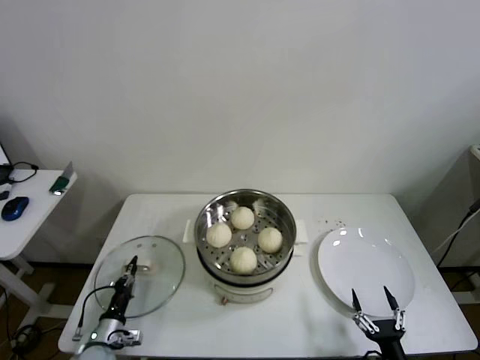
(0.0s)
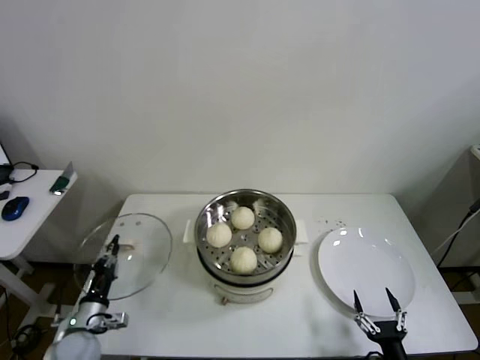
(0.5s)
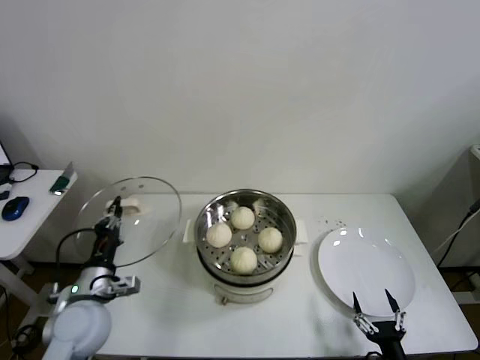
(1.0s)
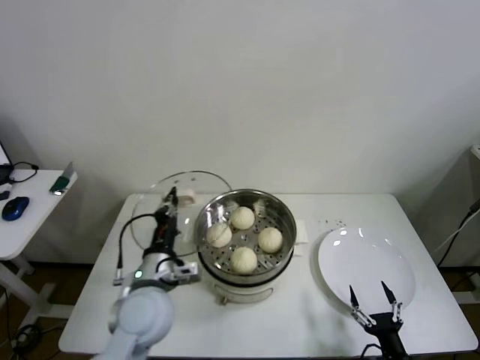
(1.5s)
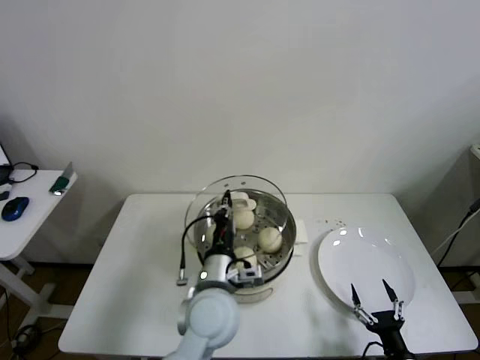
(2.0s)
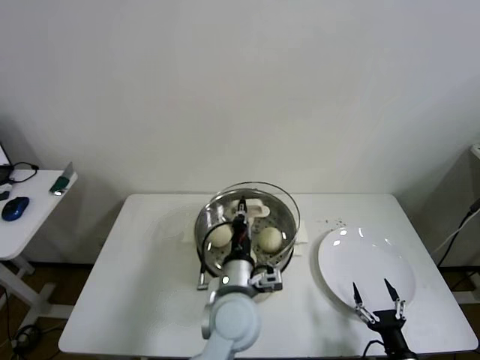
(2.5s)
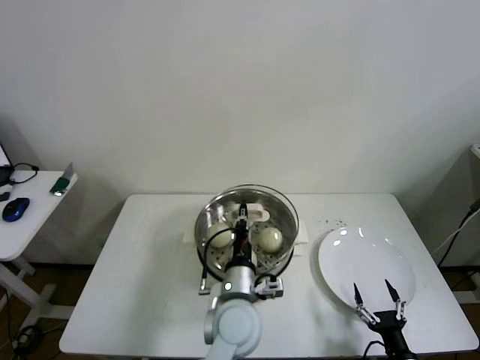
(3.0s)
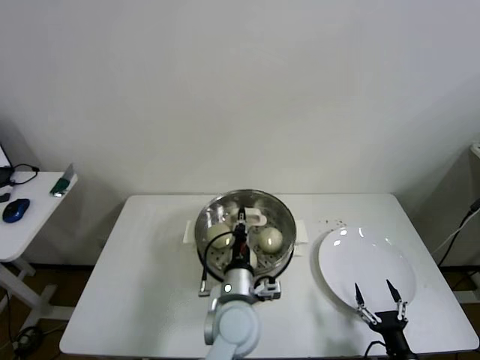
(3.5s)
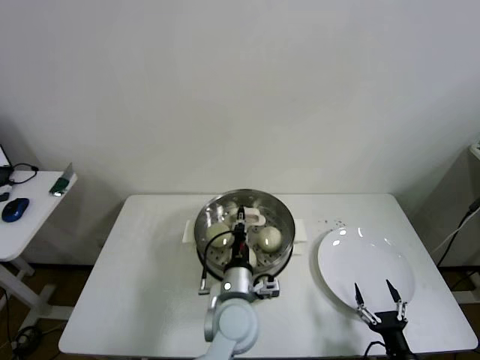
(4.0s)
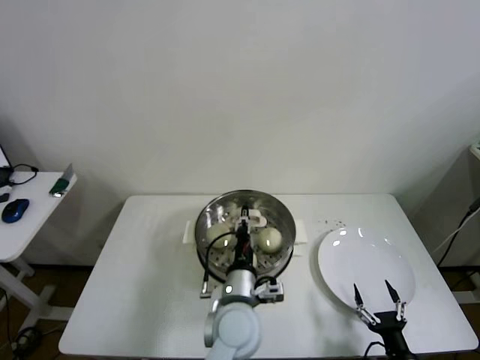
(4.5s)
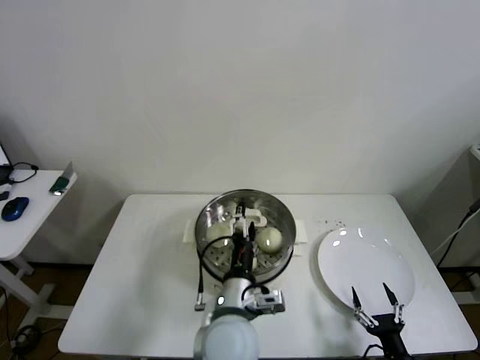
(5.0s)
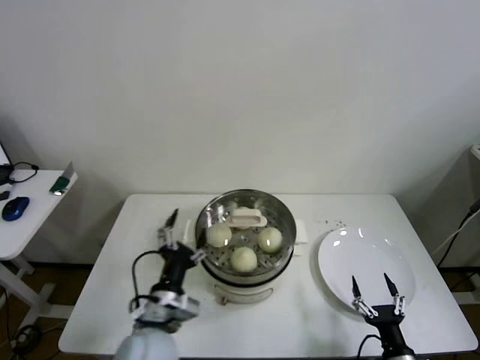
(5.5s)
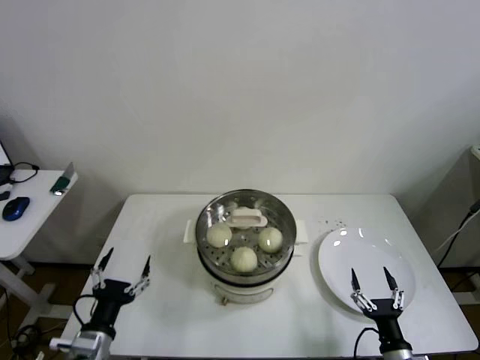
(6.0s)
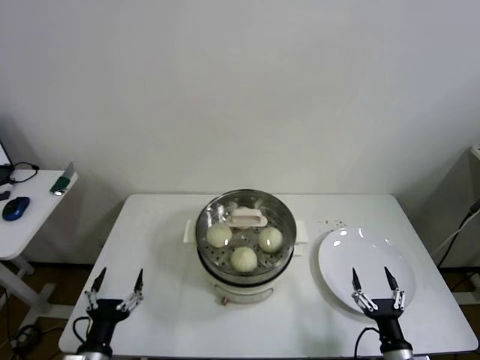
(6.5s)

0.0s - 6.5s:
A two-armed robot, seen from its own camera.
Step, 0.0s - 4.5s: Place the pot lid on the steamer with left gripper.
0.0s - 2.0s: The left gripper is displaced to the right and upward by approximately 40 cm.
2.0s - 4.5s: The left gripper travels to the right and downward by roughly 10 cm.
4.5s - 6.5s: The left gripper shifts approximately 35 cm to the left and backward, and opens up.

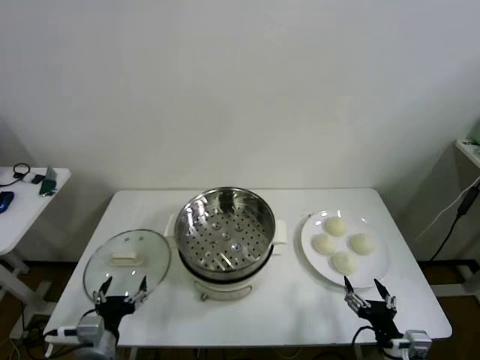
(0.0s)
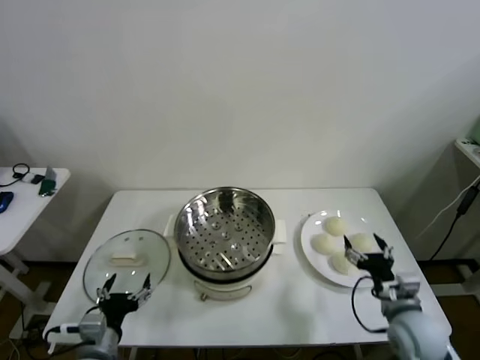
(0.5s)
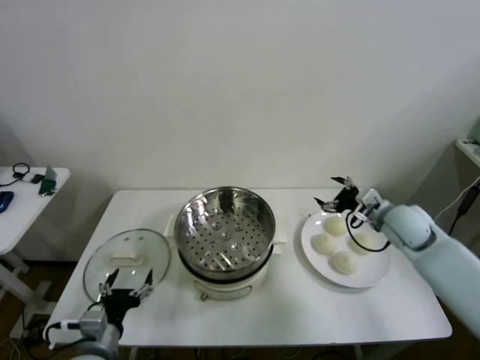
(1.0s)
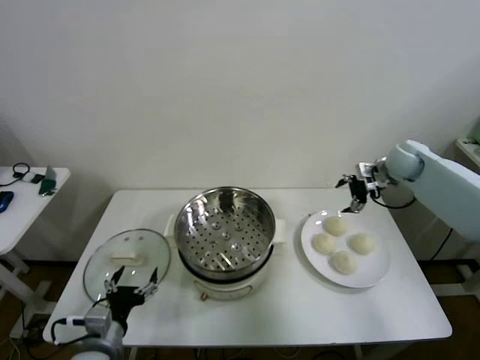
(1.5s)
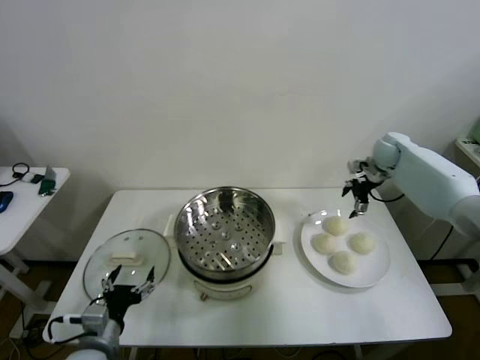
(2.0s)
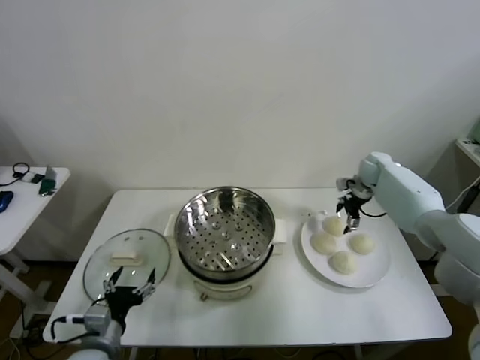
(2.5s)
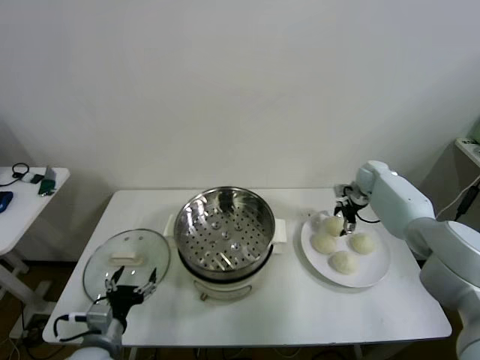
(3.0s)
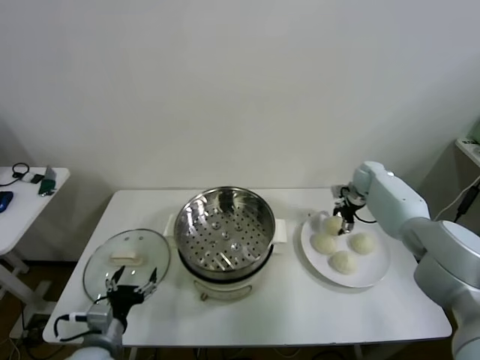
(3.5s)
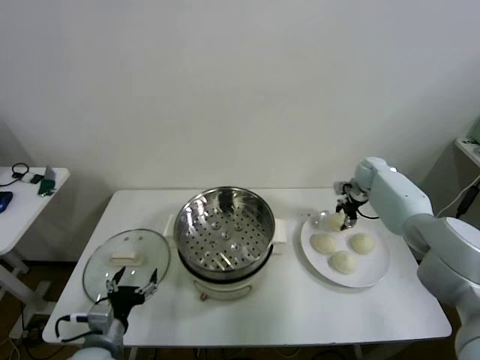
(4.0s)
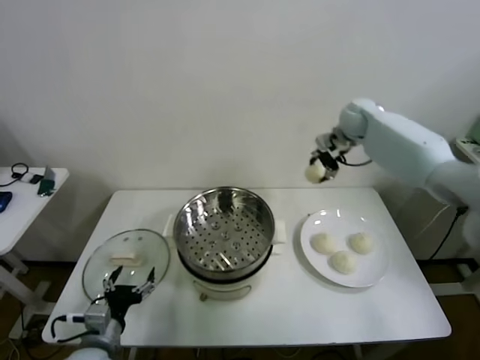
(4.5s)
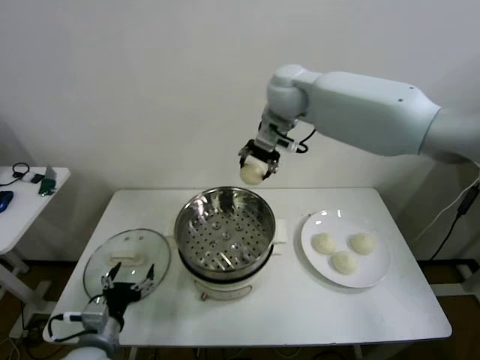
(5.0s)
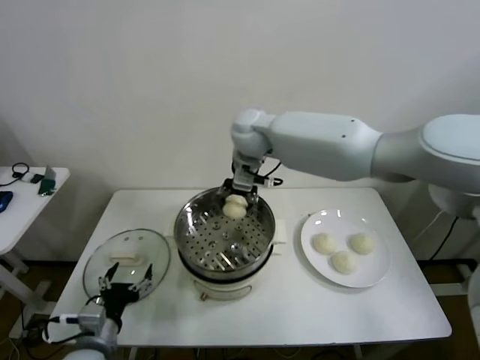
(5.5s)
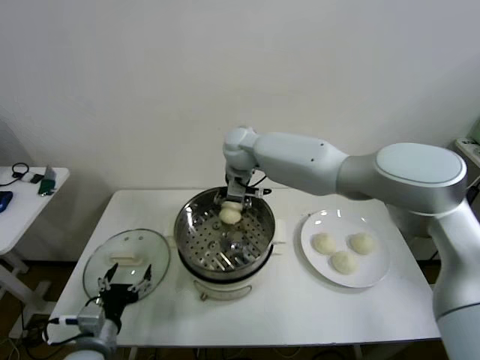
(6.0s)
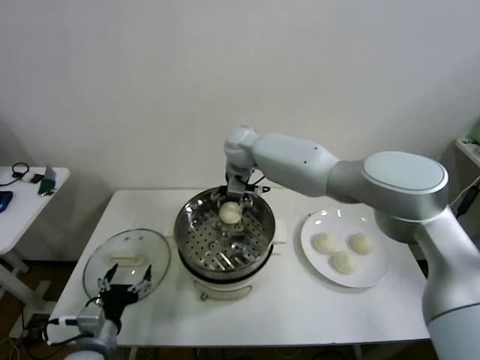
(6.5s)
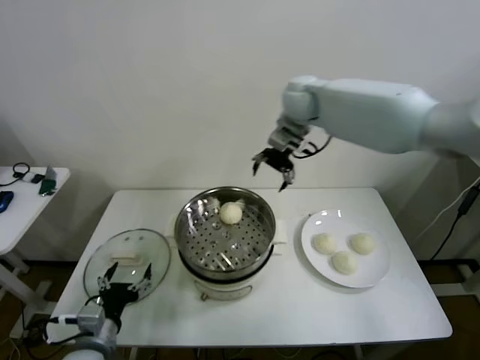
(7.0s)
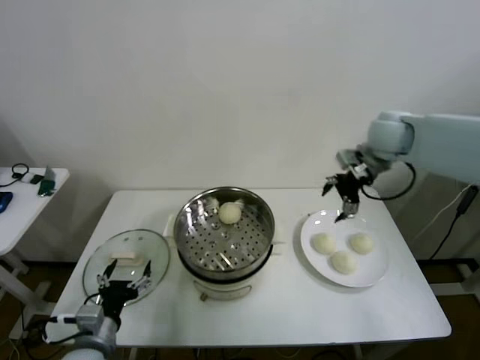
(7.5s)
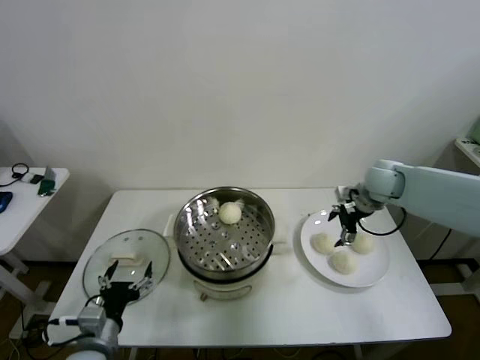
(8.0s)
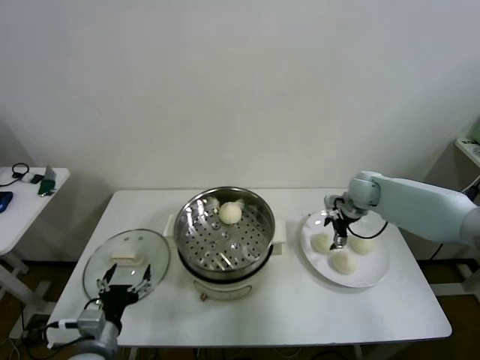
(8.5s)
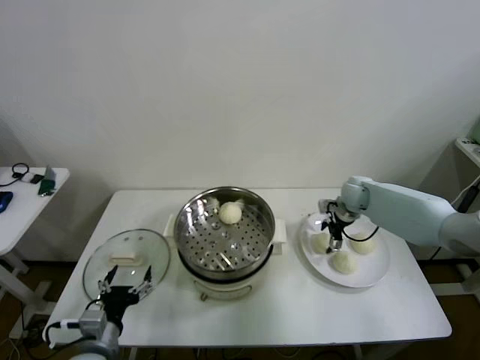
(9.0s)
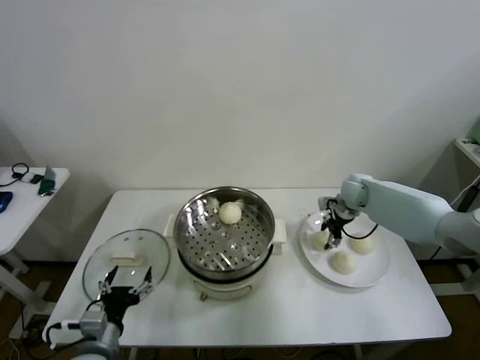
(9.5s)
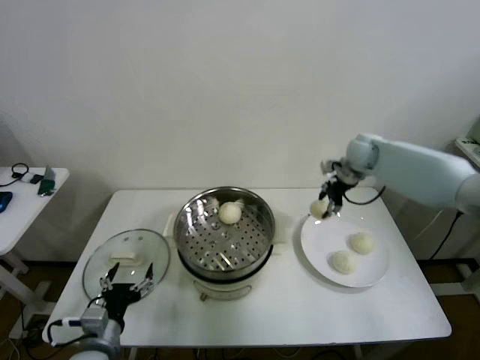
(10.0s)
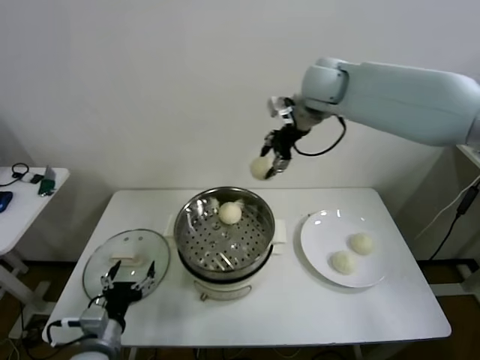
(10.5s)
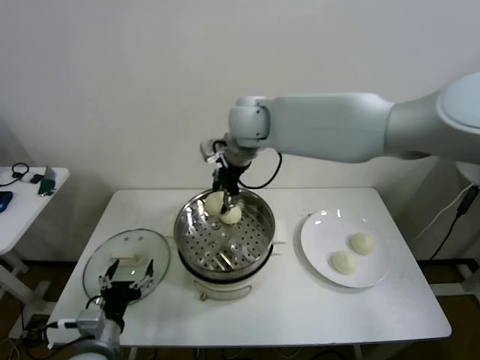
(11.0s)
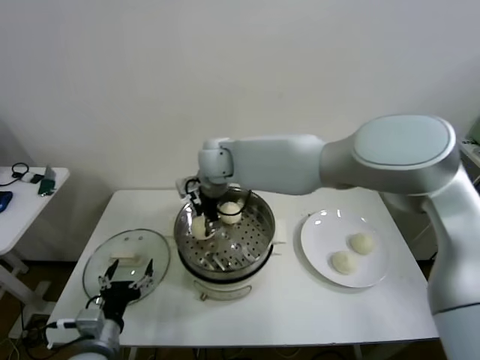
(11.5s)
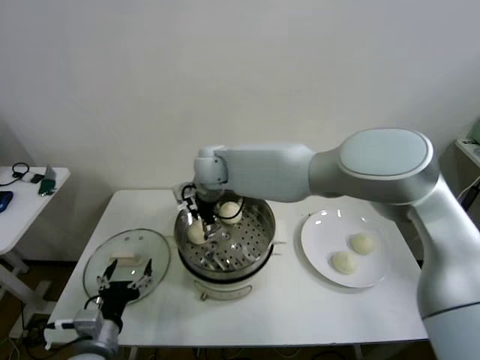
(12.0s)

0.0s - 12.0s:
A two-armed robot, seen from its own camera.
Step, 0.0s - 3.5s: Grasp the baozi in the plate with right gripper.
Step, 4.0s - 6.0s: Place the baozi on the steamer with right gripper.
Step, 6.5s - 9.0s: Grasp the baozi in the plate with right gripper.
Step, 9.5s - 11.5s: Place the baozi on the steamer with right gripper.
2.0s - 4.0s: The right gripper shifts approximately 5 cm downward, and closes its fingers.
4.0s - 6.0s: The right gripper shifts about 40 cm to the left.
6.0s - 8.0s: The right gripper heads to the right, covering roughly 35 cm, and opens.
8.0s - 10.0s: The right gripper moves forward and upward, approximately 10 cm, and closes up.
10.0s - 12.0s: The right gripper goes about 35 cm to the left, and opens its fingers.

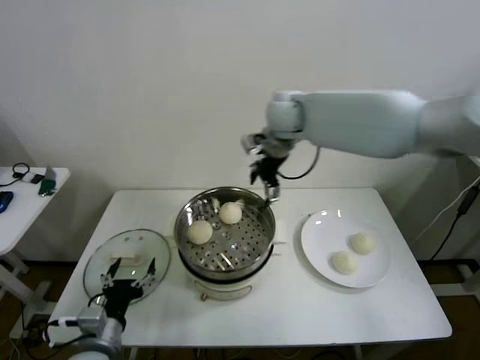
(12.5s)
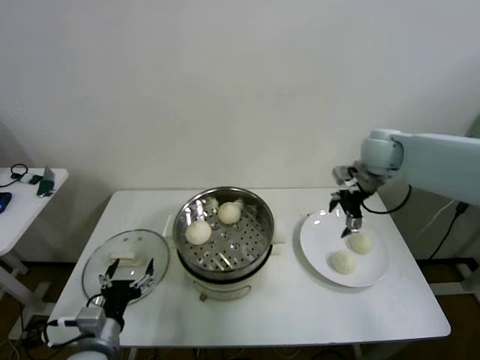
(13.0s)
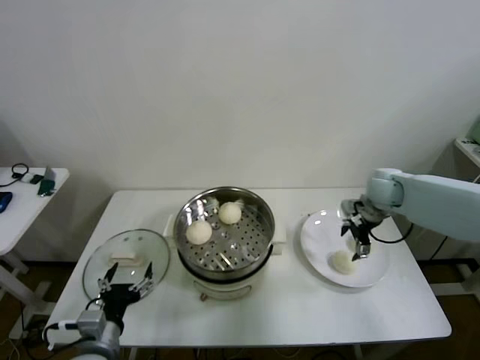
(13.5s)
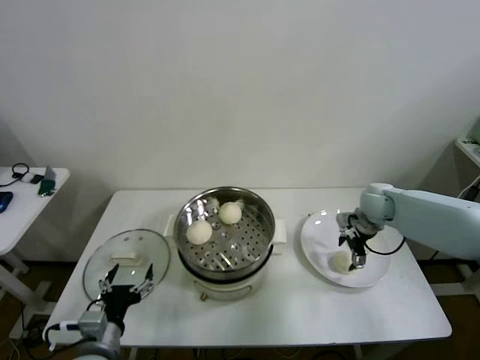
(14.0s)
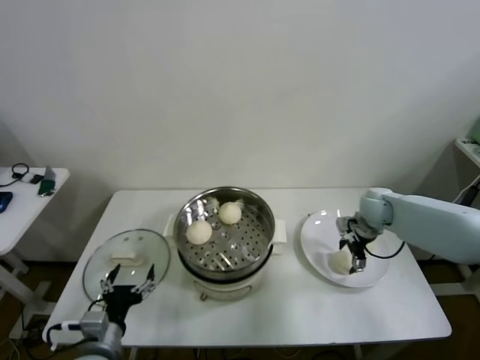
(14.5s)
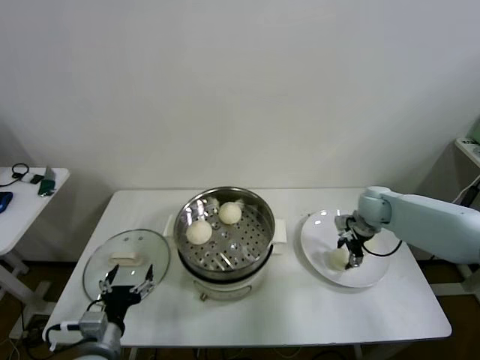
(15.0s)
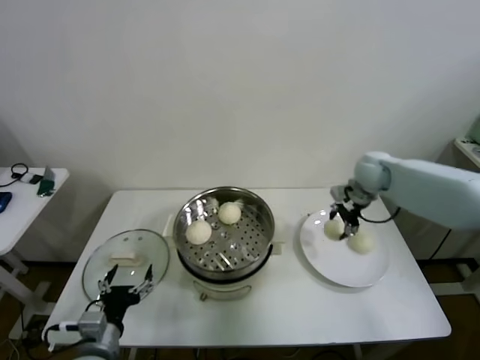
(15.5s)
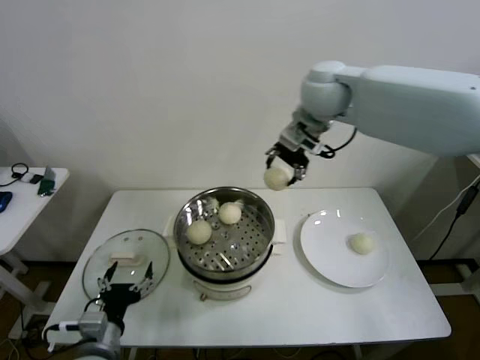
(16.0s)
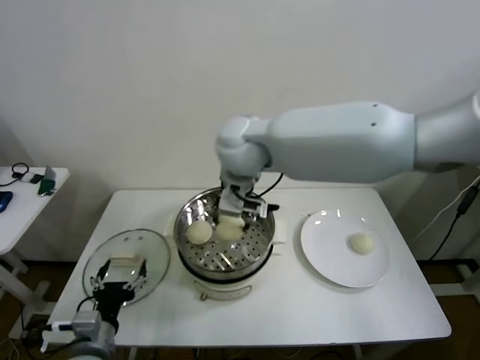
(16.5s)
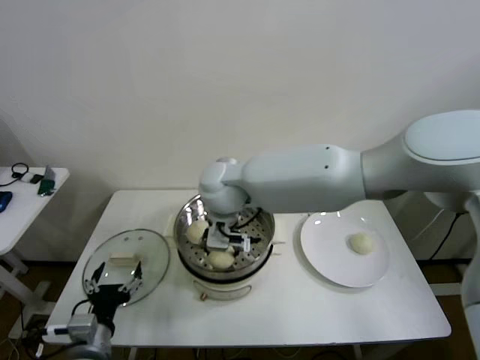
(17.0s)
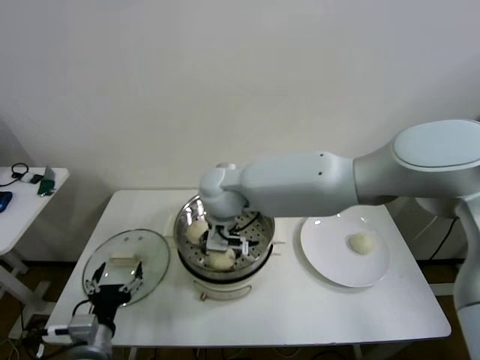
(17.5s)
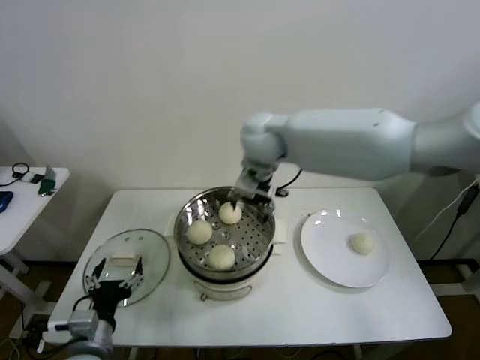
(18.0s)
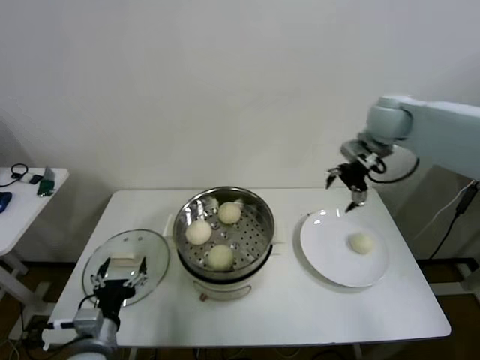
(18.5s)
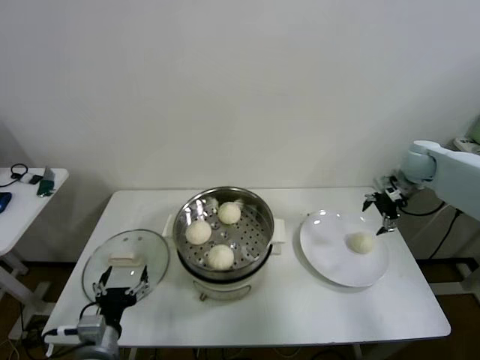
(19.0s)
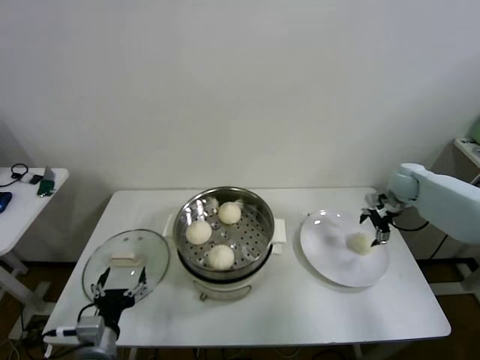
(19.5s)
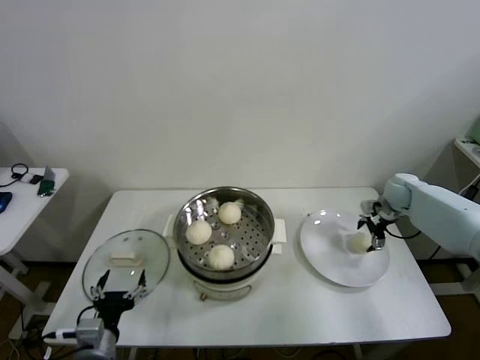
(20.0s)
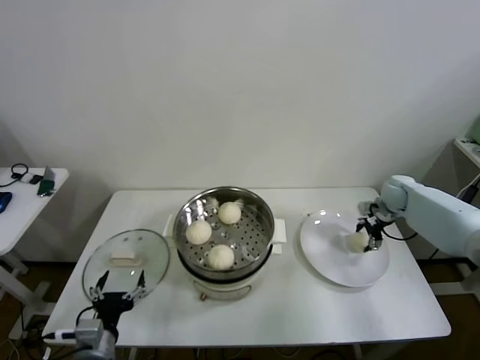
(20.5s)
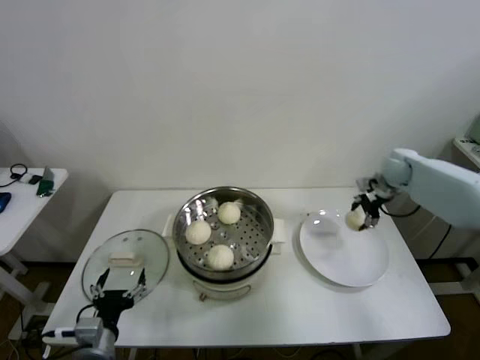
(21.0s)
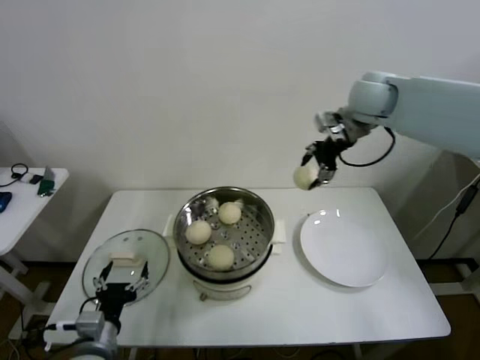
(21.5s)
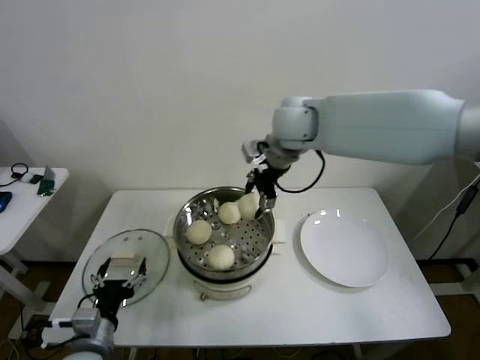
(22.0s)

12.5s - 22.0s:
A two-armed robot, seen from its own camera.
Step, 12.5s - 14.5s: Grasp the baozi in the plate with right gripper.
Step, 15.0s - 17.0s: Place the baozi on the steamer with right gripper.
Step, 17.5s - 20.5s: Grasp the baozi in the plate with right gripper.
12.5s - 14.5s: The right gripper goes some 35 cm downward and to the right.
14.5s - 16.5s: The right gripper shifts about 40 cm to the left and upward, and closes.
16.5s - 18.0s: The right gripper heads forward and to the right, covering approximately 10 cm, moves roughly 10 cm downward and comes back, and opens up.
18.0s - 20.0s: The right gripper moves to the right and downward, about 40 cm.
20.0s - 22.0s: The right gripper shifts about 40 cm to the left and upward, and closes its fingers.
